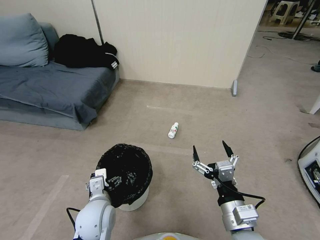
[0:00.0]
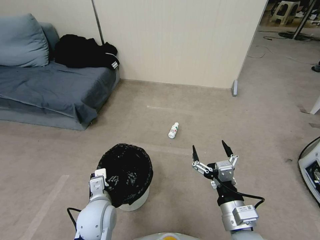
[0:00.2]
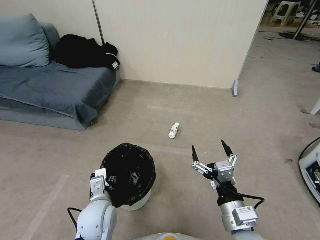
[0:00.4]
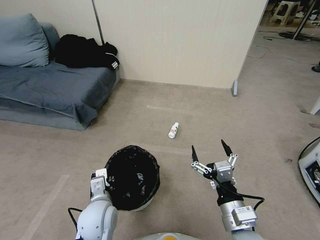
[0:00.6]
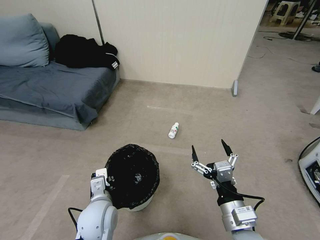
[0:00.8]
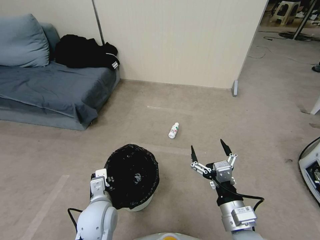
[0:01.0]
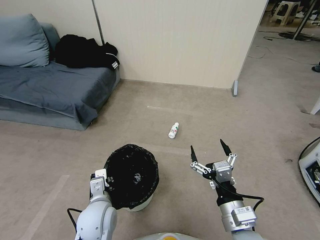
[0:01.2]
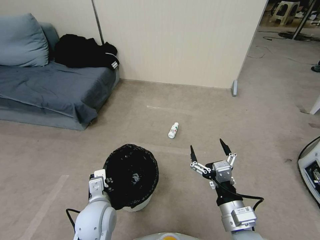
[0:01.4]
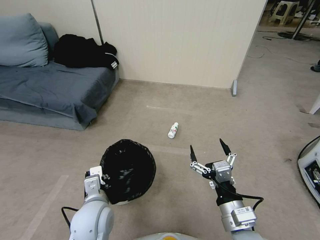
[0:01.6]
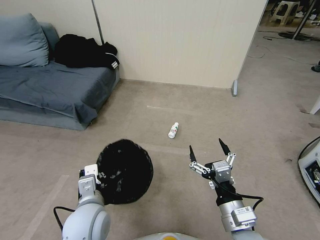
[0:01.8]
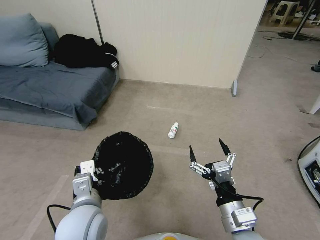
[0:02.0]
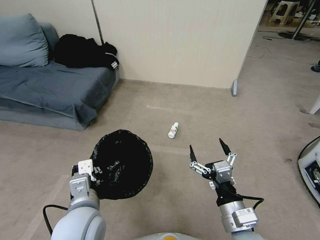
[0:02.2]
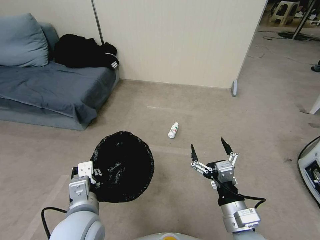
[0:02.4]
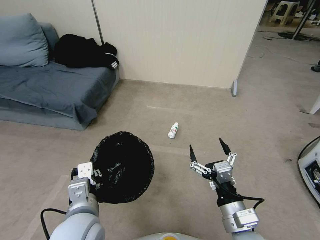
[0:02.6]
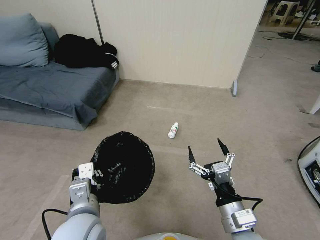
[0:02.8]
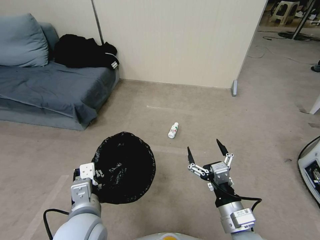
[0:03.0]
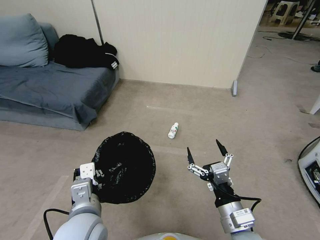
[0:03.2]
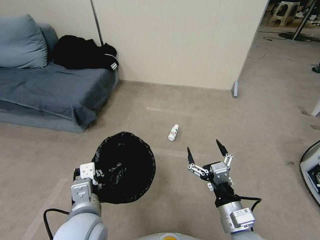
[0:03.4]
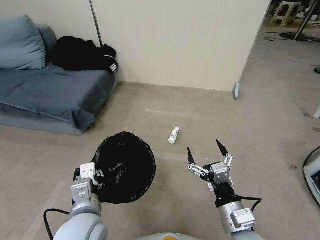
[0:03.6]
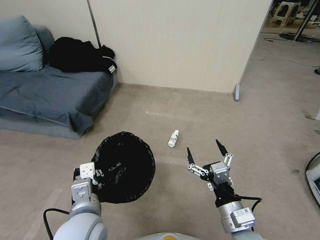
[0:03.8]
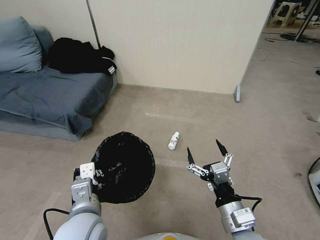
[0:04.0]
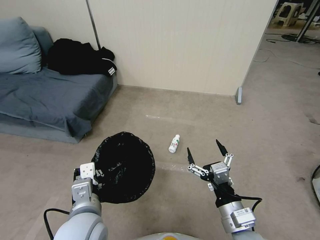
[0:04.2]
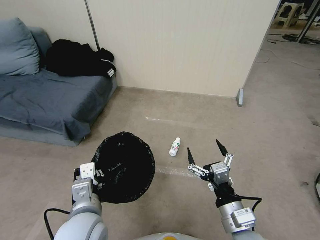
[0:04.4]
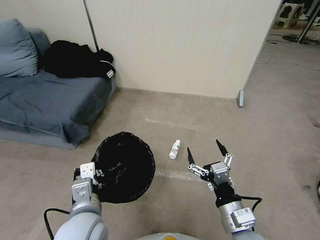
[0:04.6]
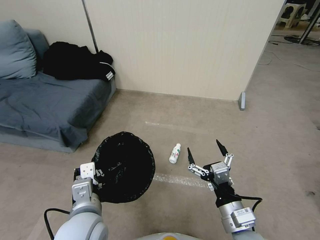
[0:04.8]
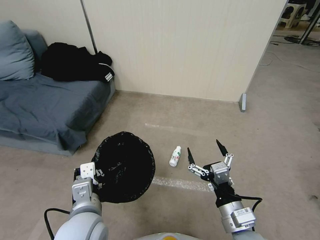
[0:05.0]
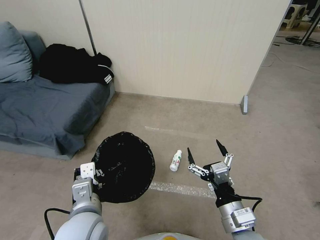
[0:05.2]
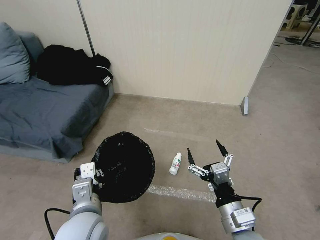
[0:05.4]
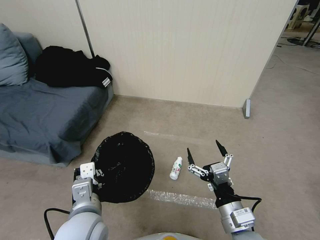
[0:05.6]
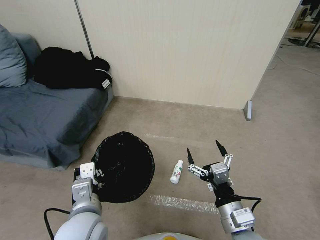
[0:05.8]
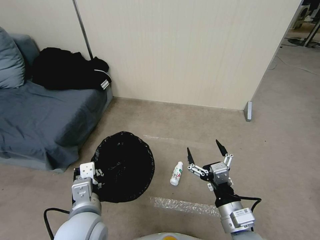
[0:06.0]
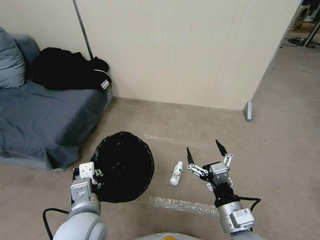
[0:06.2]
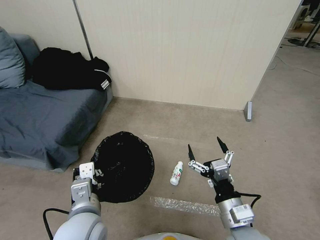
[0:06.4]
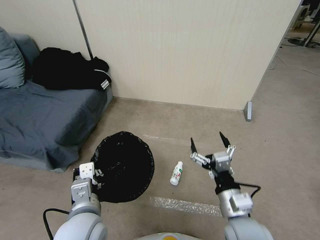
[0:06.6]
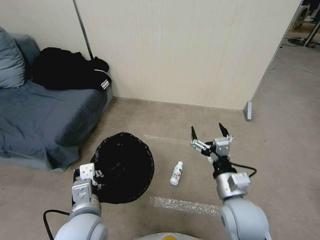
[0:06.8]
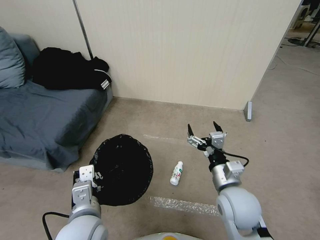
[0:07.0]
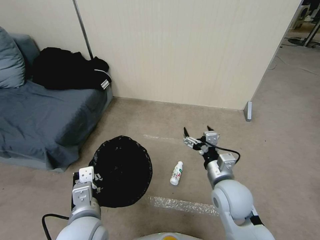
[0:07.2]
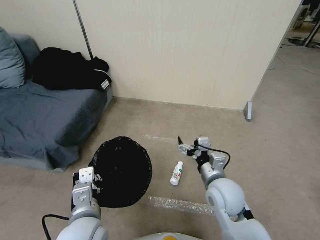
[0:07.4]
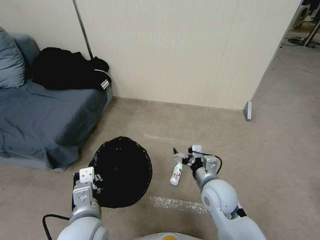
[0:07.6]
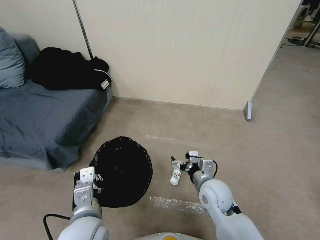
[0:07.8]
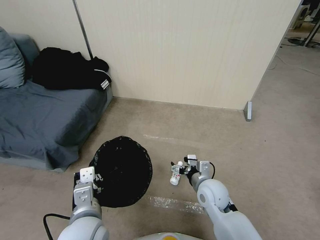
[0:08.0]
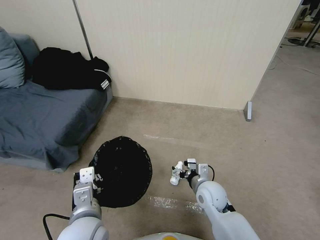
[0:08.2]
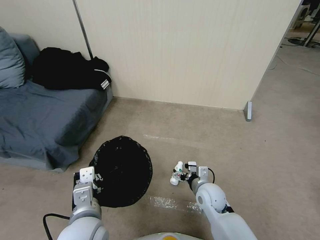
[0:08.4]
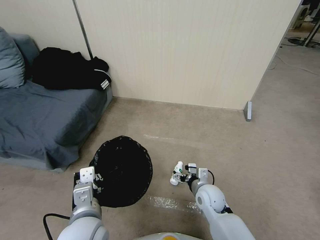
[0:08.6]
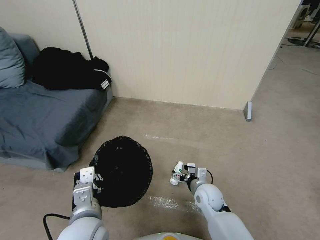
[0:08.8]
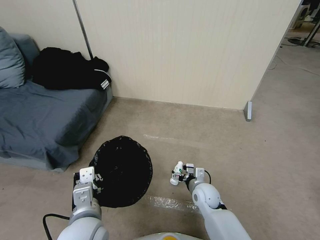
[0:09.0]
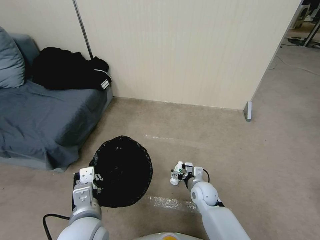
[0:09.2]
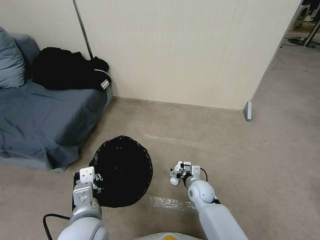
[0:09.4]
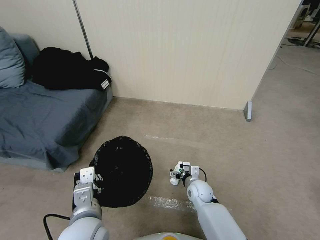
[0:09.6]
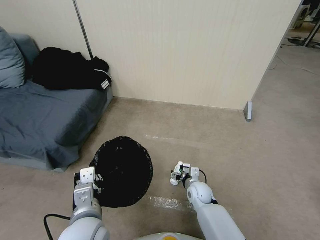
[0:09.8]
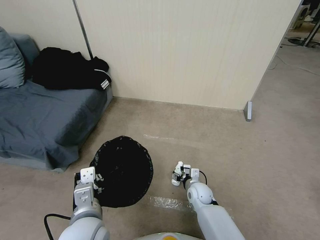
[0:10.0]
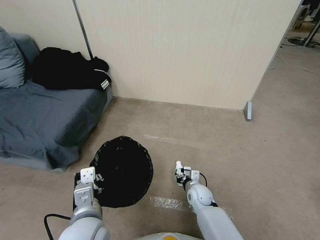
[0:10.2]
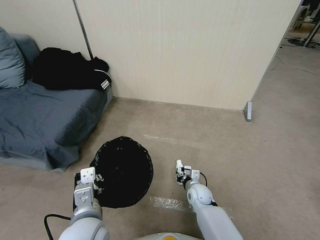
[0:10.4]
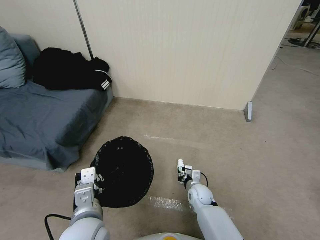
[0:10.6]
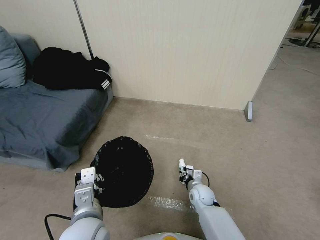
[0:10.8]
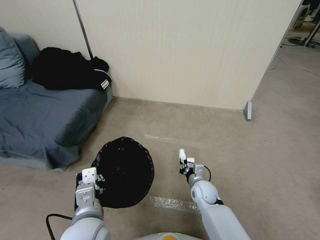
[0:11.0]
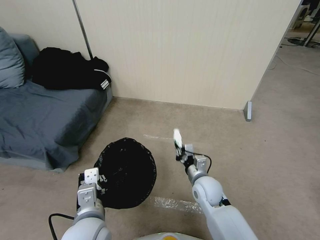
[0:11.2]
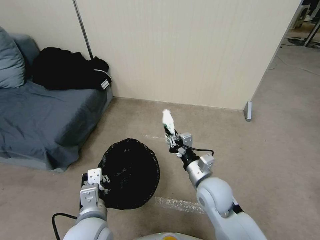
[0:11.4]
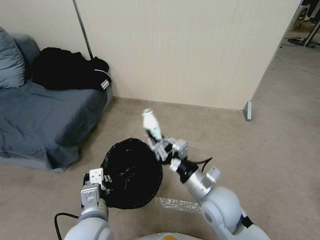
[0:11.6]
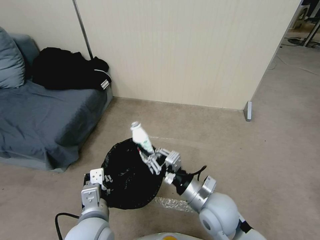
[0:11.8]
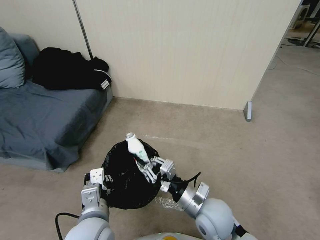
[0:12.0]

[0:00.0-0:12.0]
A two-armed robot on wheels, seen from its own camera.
Task of the whole recording: Pick up the trash bin, then pick up the garbage from the floor and place it into the trash bin.
0:00.0 to 0:01.6: The left gripper closes its fingers.
0:01.6 to 0:03.0: The left gripper goes some 5 cm upward.
0:03.0 to 0:06.0: Both grippers stay put.
0:06.0 to 0:07.6: The right gripper moves forward, roughly 15 cm.
0:07.6 to 0:09.0: The right gripper travels downward by roughly 15 cm.
0:09.0 to 0:10.4: The right gripper heads downward, covering approximately 5 cm, and closes its fingers.
0:10.4 to 0:12.0: The right gripper is displaced upward and backward by about 25 cm.

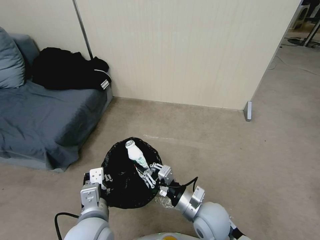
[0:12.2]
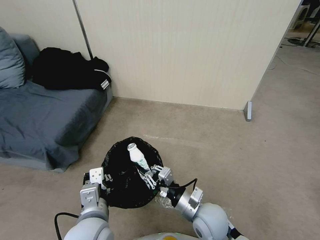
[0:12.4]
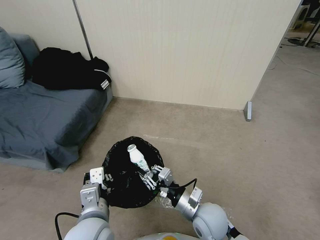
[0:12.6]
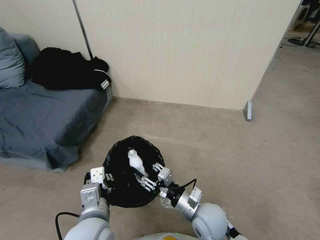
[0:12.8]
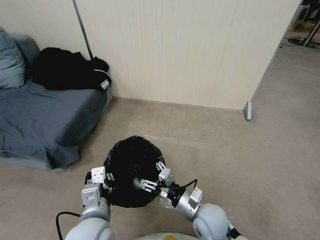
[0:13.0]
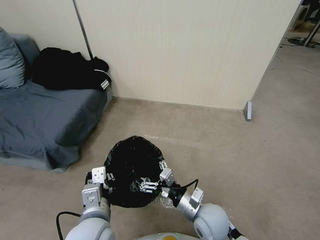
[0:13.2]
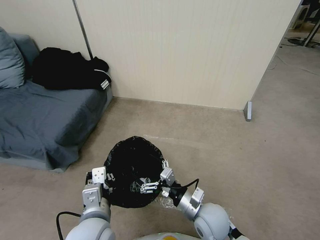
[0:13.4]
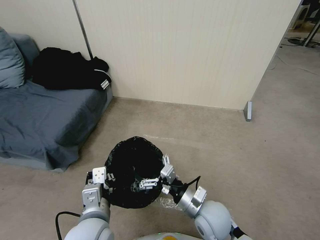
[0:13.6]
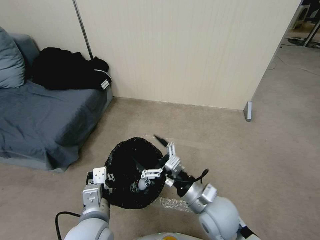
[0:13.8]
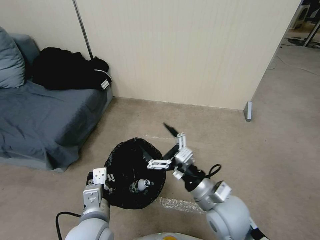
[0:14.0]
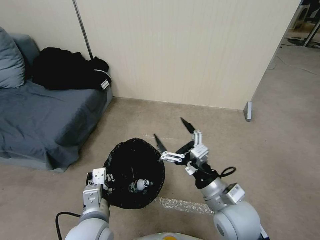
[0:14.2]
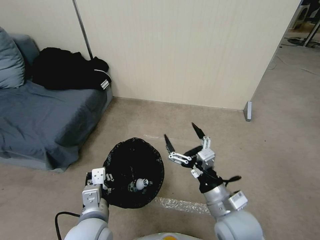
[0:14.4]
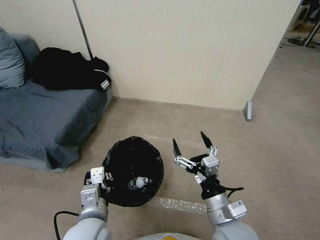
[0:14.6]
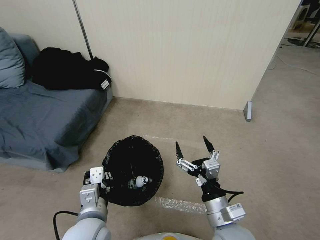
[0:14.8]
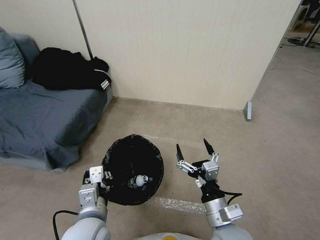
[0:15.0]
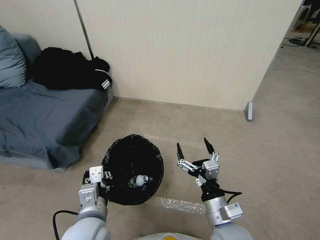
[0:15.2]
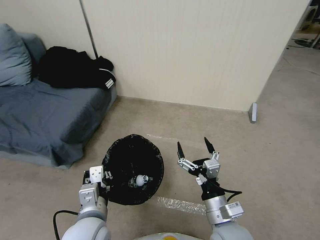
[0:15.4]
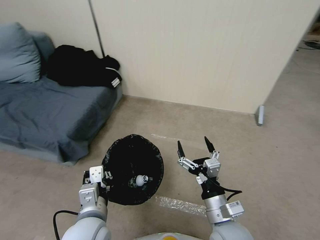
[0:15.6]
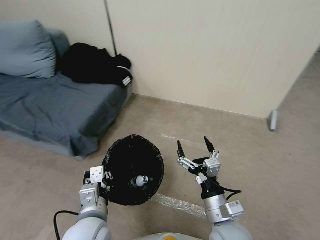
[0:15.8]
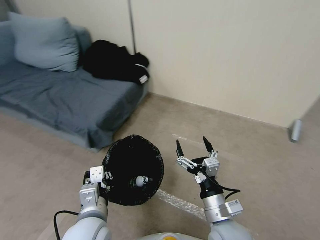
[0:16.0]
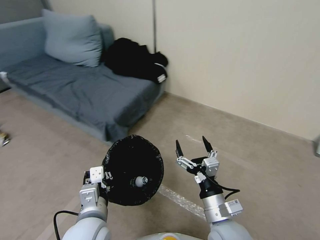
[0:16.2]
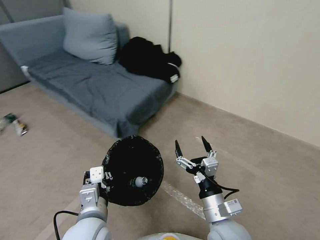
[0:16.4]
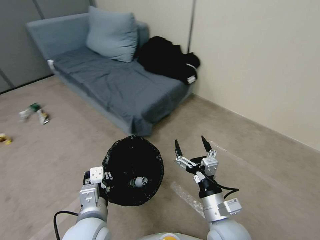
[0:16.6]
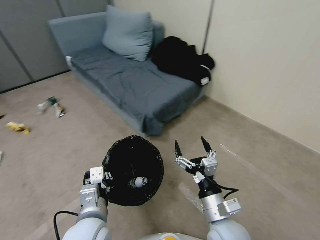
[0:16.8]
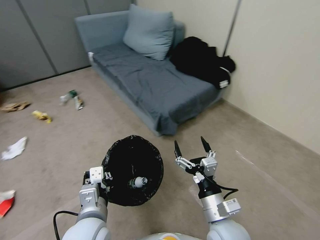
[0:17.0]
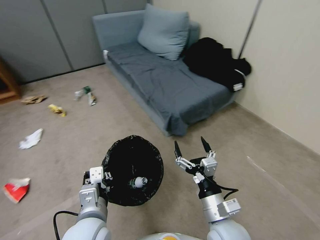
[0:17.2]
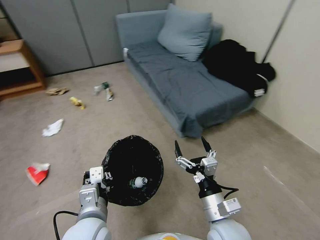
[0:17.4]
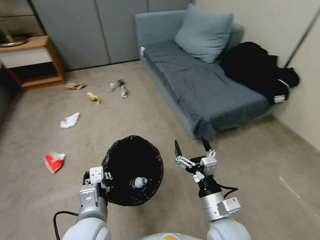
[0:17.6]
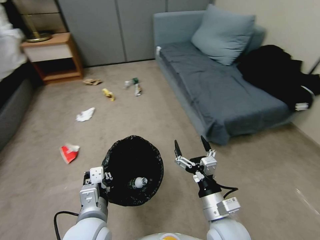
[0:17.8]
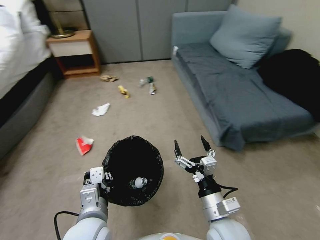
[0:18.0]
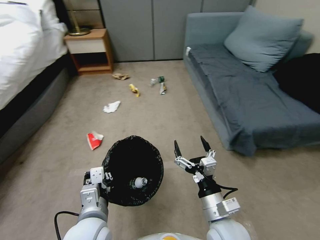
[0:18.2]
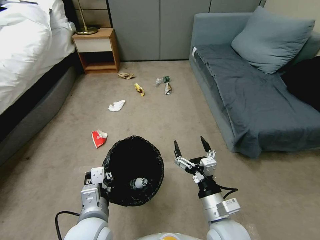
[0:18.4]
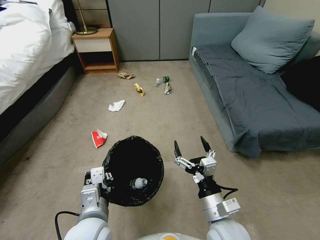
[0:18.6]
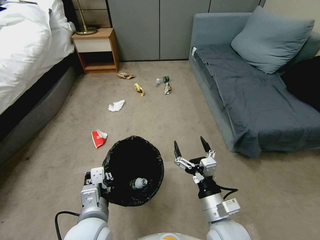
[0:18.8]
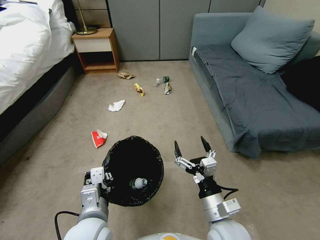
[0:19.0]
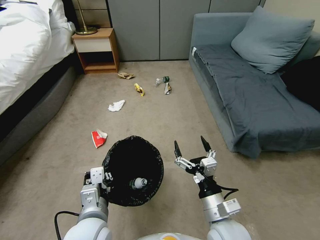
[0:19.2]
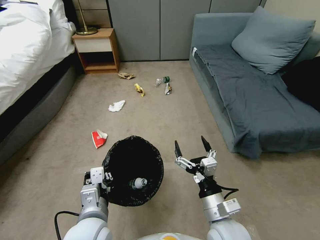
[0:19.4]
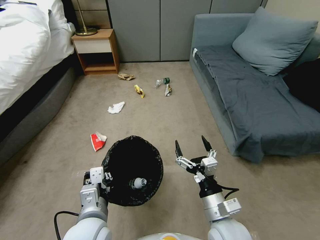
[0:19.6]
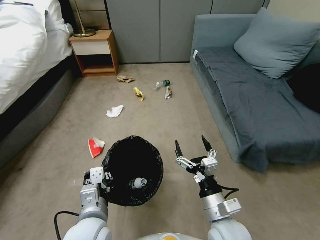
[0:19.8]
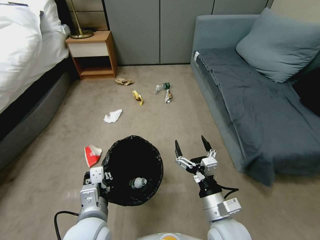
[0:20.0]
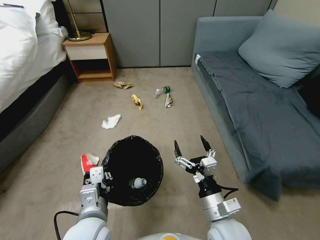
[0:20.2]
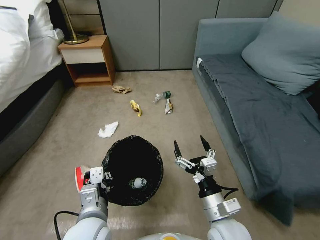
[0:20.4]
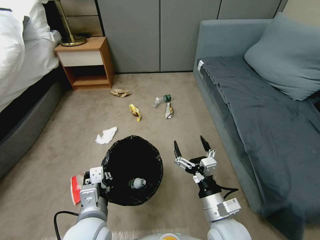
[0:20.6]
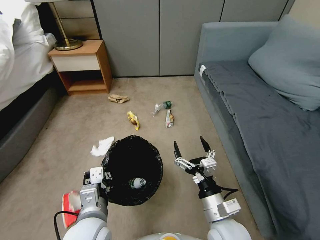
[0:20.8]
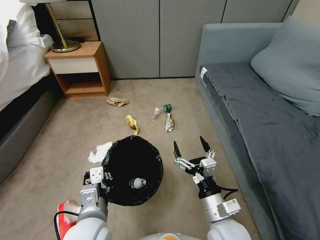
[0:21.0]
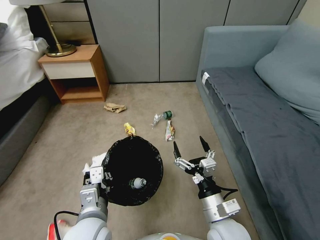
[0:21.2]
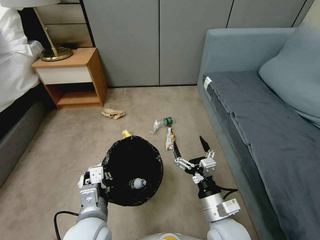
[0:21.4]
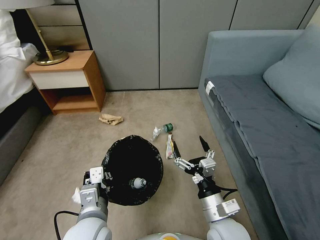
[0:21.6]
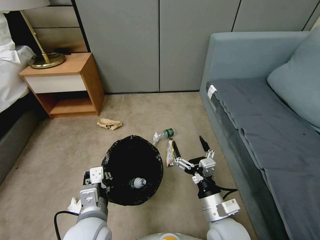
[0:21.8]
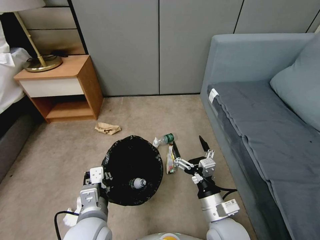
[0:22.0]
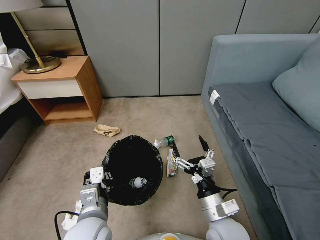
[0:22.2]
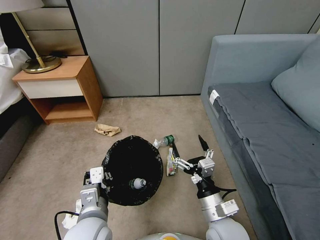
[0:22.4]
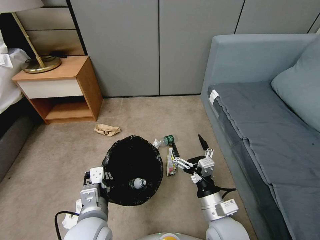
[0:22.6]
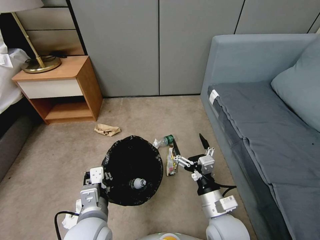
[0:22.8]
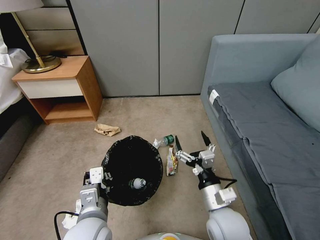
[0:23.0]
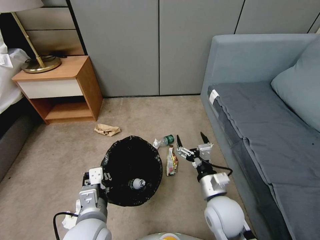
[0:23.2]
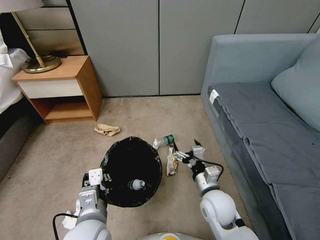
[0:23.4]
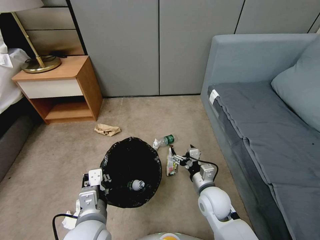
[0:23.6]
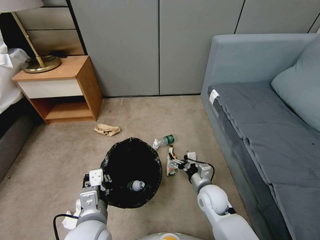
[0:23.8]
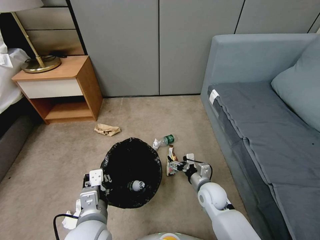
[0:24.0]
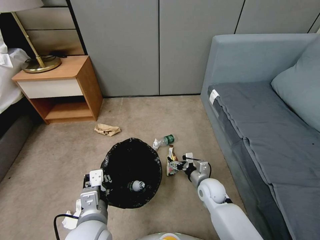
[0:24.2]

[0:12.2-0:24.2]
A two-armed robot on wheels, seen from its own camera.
Task of the whole recording: Pick up the trash bin, then pick up the garbage from the floor and place it into the trash bin.
0:12.2 to 0:13.8: The right gripper opens up.
0:13.8 to 0:15.2: The right gripper is displaced backward by roughly 5 cm.
0:18.2 to 0:19.8: The two grippers keep their place.
0:22.6 to 0:24.2: The right gripper shifts roughly 20 cm forward and downward.
